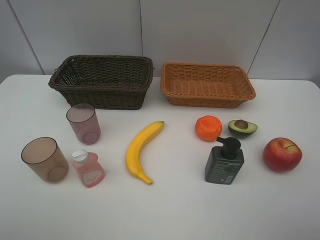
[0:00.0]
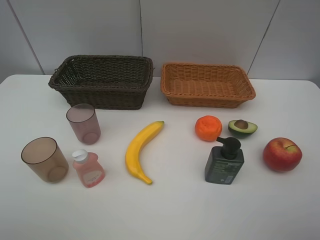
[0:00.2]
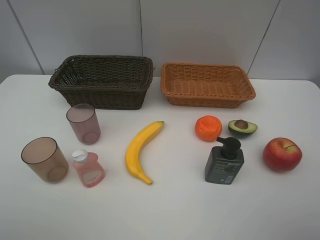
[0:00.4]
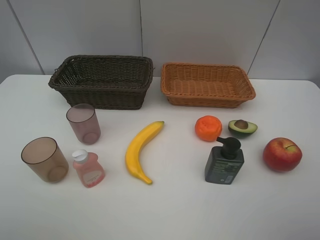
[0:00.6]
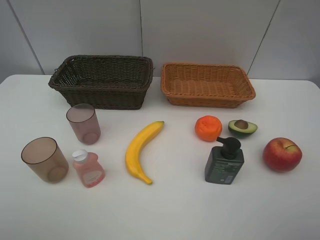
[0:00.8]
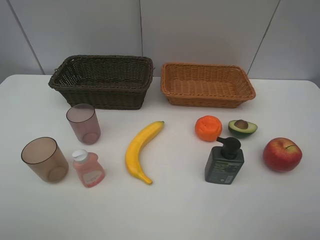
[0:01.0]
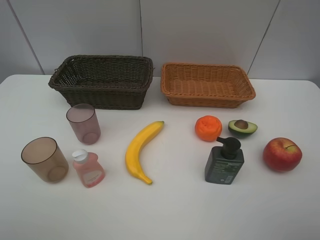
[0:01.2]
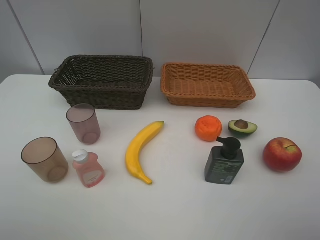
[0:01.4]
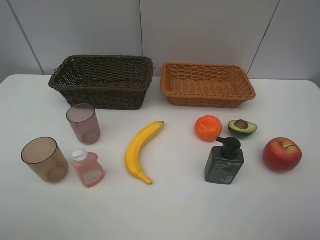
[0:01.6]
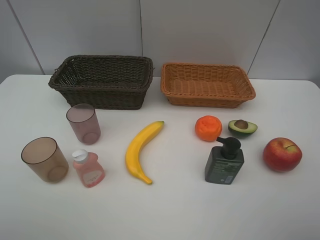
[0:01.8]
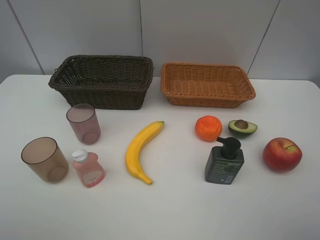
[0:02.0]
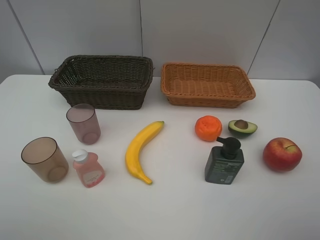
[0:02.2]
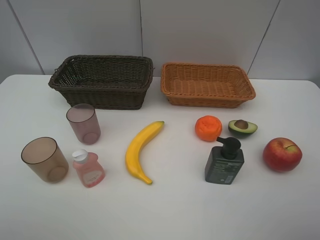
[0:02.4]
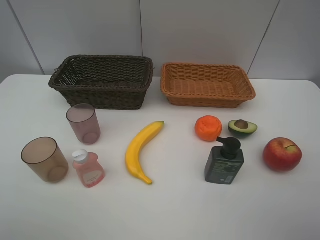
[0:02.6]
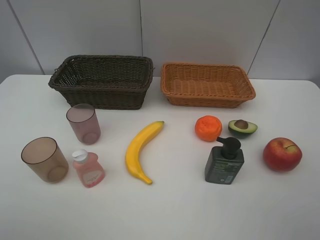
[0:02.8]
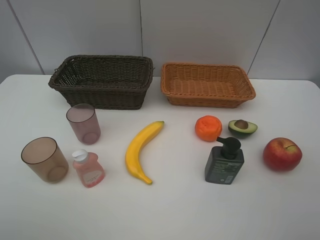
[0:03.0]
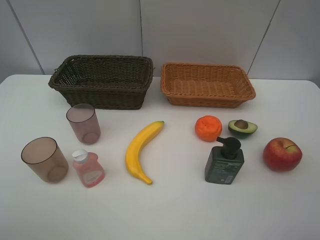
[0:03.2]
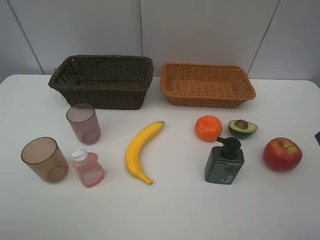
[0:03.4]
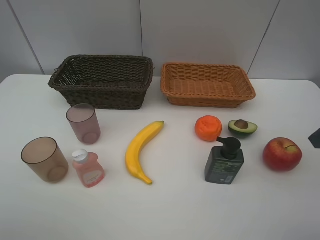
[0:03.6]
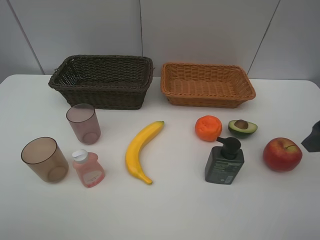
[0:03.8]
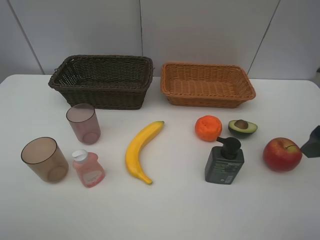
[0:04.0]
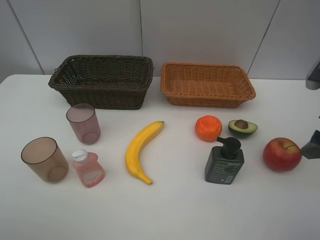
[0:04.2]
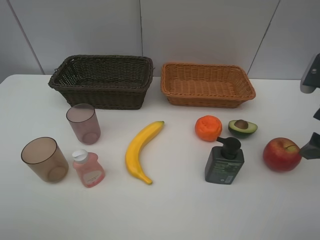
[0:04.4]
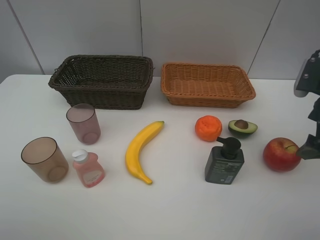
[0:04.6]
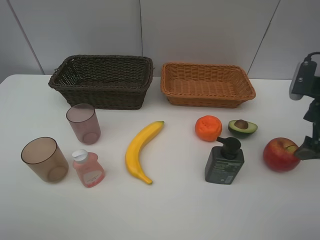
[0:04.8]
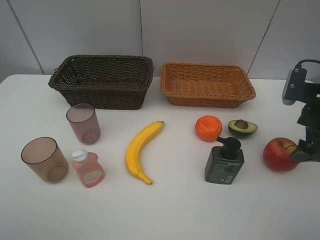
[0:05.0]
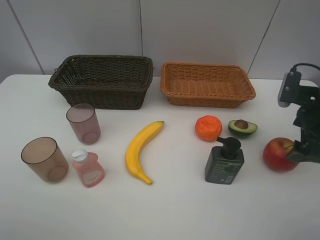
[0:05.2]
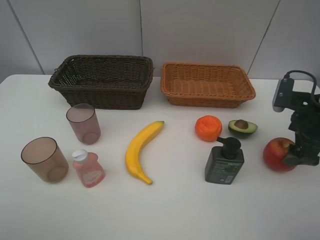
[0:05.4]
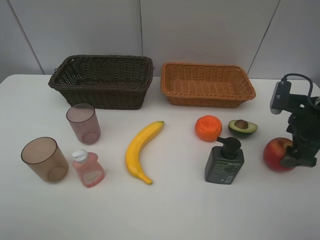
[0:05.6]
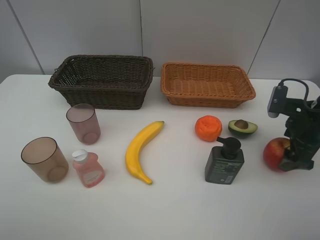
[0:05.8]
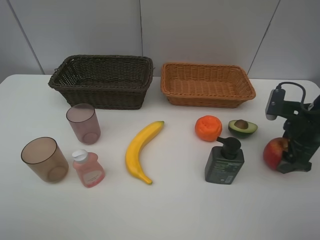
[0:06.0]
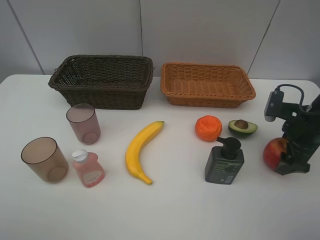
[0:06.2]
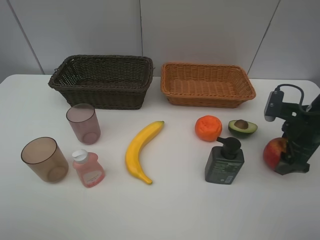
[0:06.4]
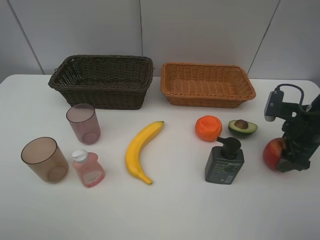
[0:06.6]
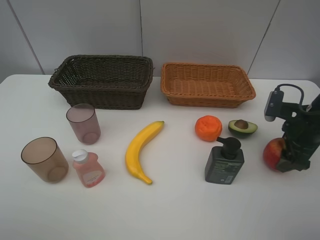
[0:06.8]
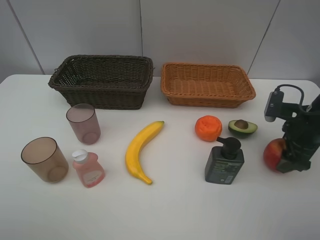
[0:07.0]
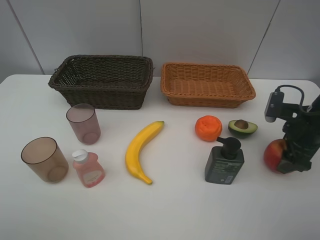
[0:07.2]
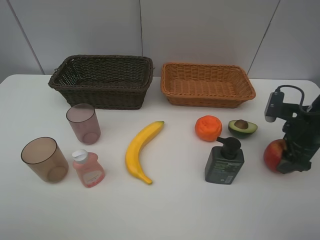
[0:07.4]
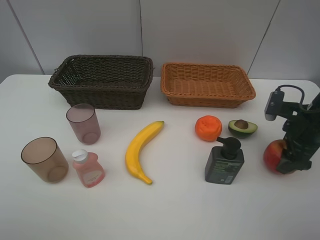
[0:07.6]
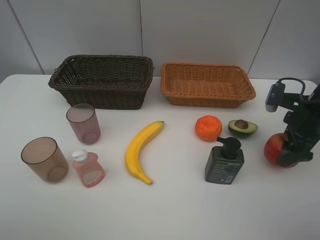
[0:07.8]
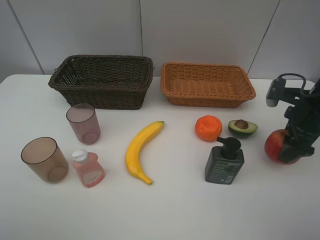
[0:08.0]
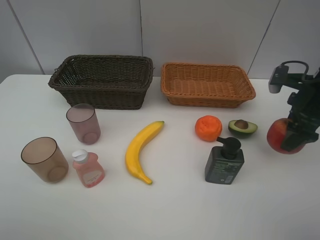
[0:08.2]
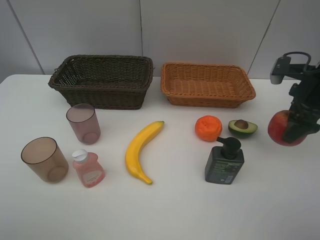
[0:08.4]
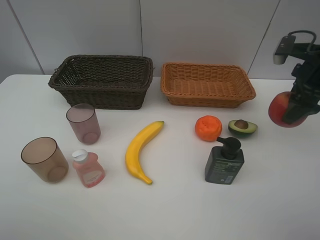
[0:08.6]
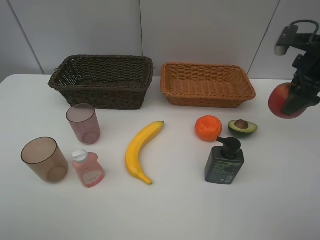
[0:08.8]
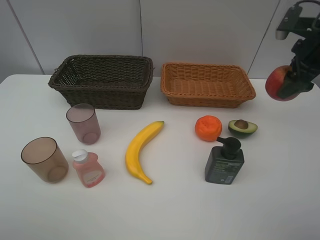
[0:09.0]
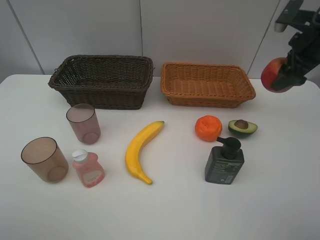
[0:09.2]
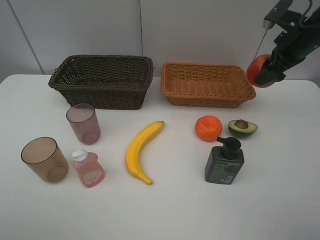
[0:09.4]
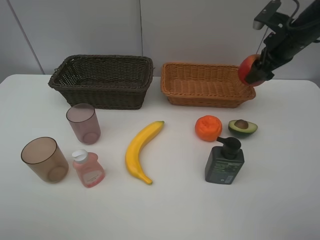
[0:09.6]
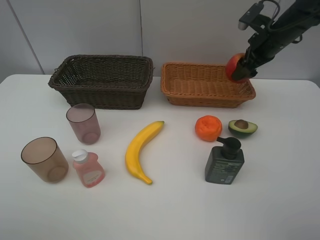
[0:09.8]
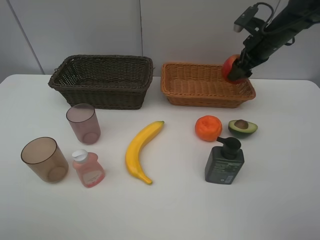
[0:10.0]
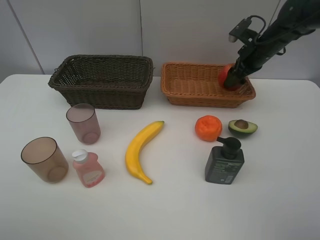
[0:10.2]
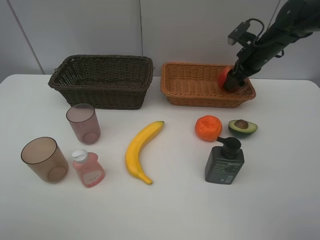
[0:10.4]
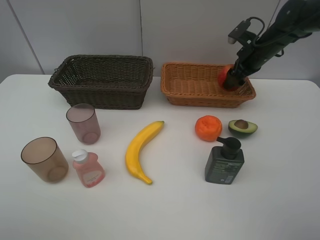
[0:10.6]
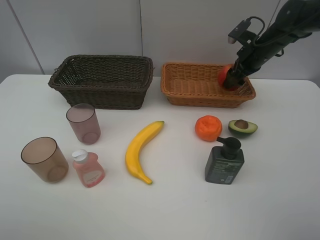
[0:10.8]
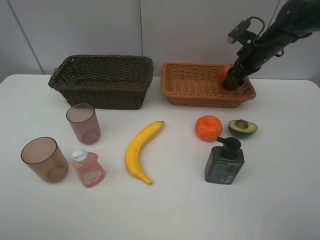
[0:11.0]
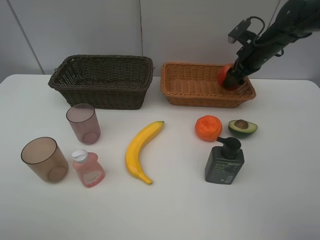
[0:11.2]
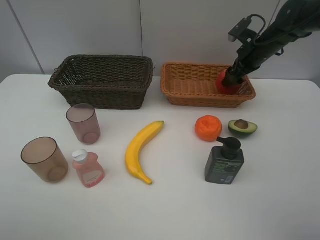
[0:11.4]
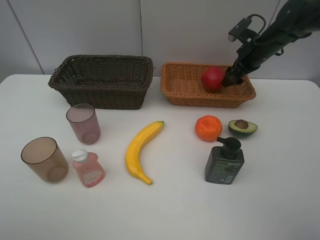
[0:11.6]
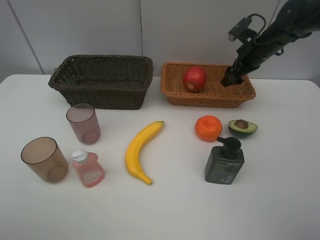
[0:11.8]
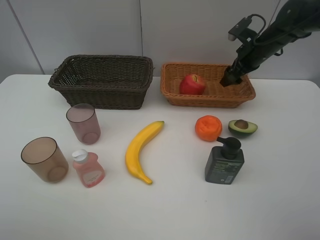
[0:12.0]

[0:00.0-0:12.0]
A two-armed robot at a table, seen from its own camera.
Task of the whole recording: Place multiple objects separately in different baskets.
Step, 0:00.0 to 0:07.8: Pick up the apple with right gripper.
0:00.0 to 0:01.6: Neither gripper changes place.
0:03.0 to 0:04.4: The right gripper goes approximately 15 cm forward and downward.
0:04.4 to 0:06.0: The right gripper shifts some 10 cm downward.
0:06.0 to 0:07.6: Both grippers stay put.
0:07.6 to 0:09.0: The right gripper shifts approximately 15 cm upward and forward.
0:09.0 to 0:10.4: The right gripper travels forward and downward by roughly 15 cm.
0:10.4 to 0:12.0: Both grippers stay put.

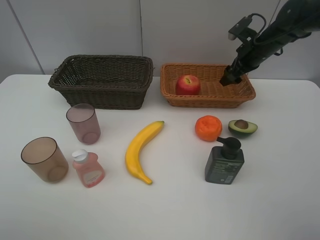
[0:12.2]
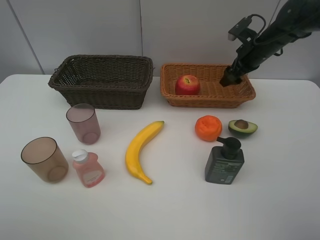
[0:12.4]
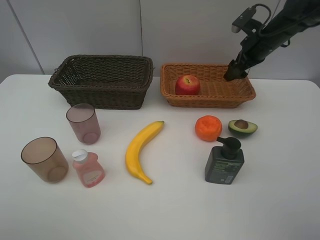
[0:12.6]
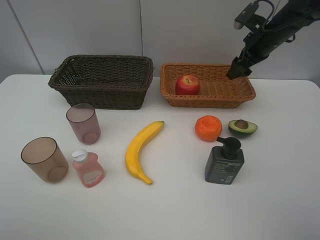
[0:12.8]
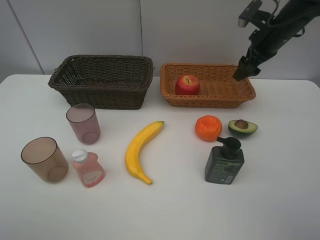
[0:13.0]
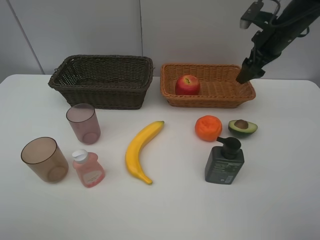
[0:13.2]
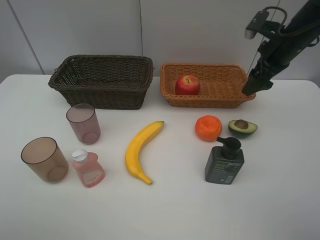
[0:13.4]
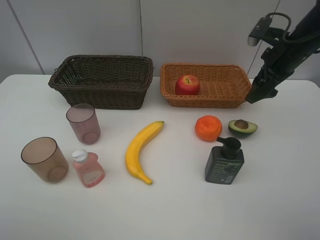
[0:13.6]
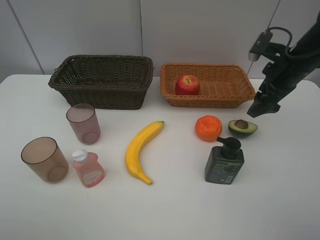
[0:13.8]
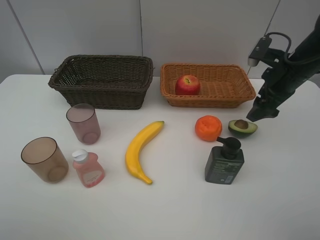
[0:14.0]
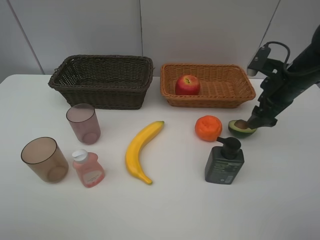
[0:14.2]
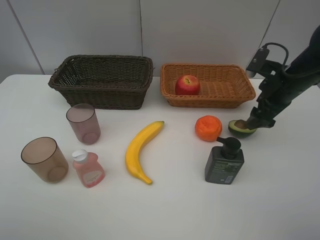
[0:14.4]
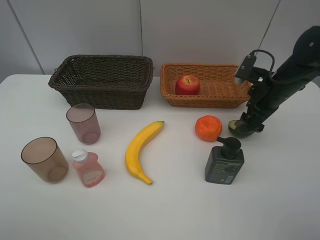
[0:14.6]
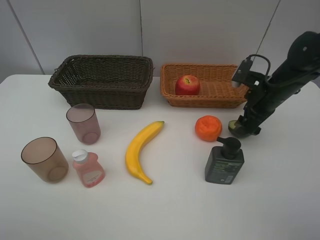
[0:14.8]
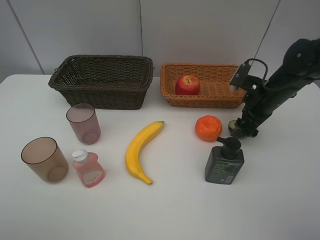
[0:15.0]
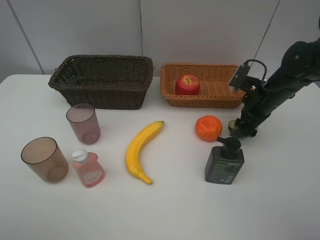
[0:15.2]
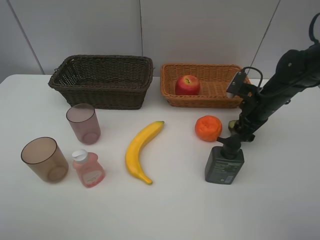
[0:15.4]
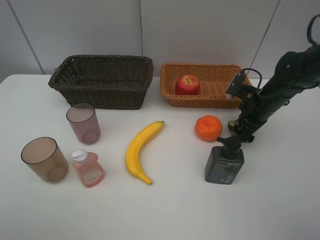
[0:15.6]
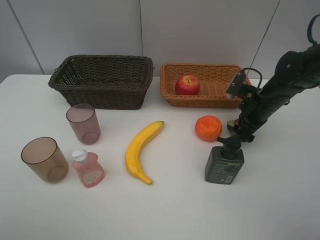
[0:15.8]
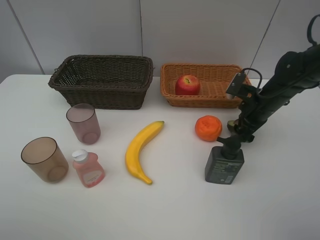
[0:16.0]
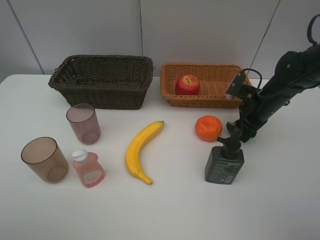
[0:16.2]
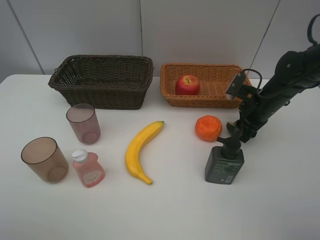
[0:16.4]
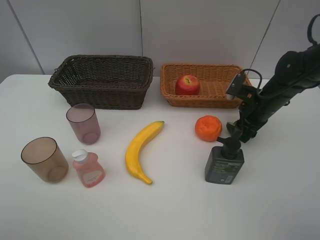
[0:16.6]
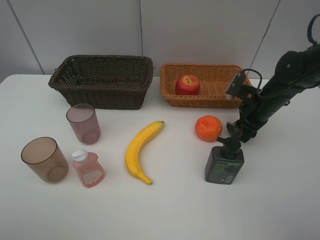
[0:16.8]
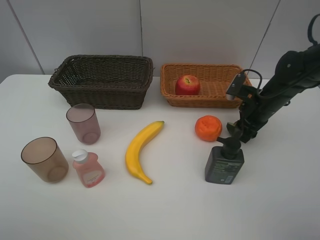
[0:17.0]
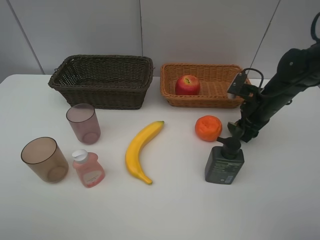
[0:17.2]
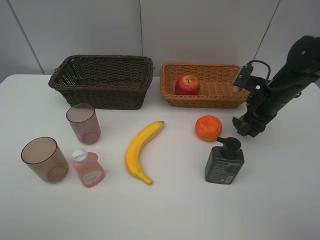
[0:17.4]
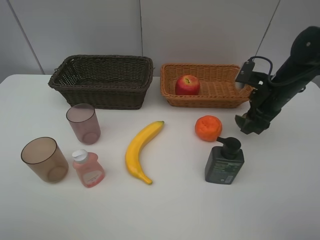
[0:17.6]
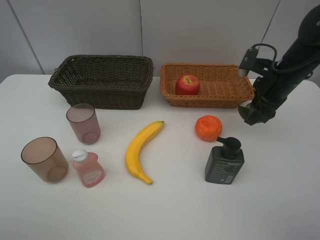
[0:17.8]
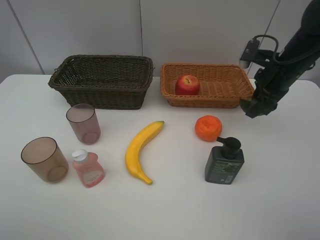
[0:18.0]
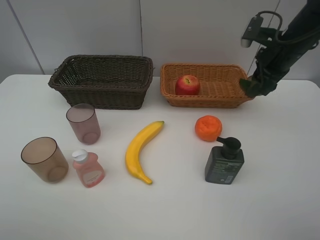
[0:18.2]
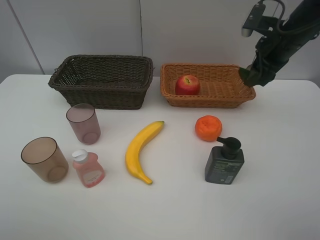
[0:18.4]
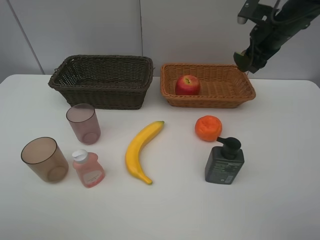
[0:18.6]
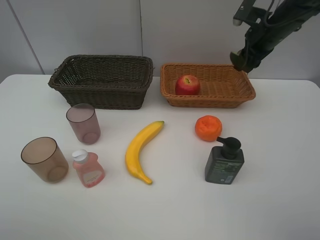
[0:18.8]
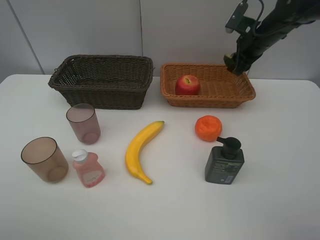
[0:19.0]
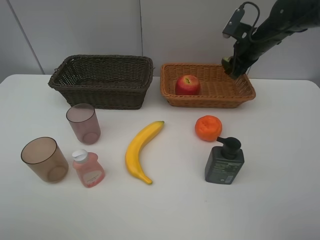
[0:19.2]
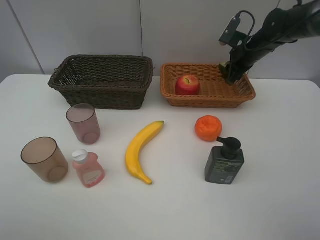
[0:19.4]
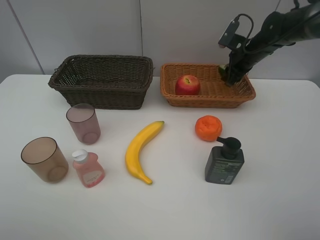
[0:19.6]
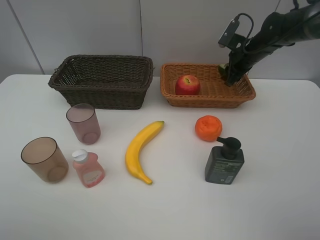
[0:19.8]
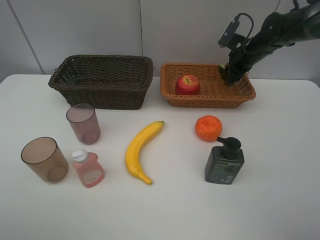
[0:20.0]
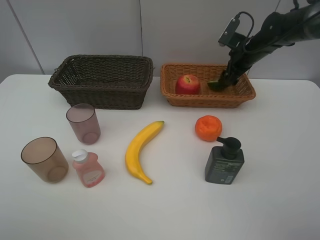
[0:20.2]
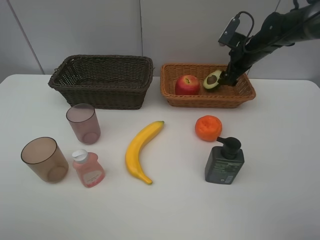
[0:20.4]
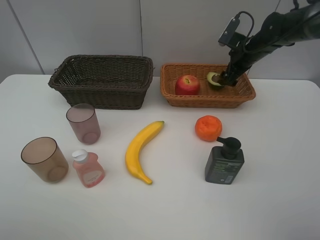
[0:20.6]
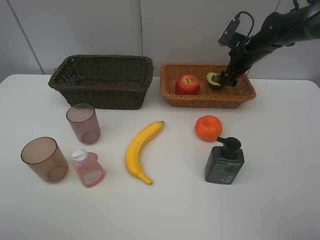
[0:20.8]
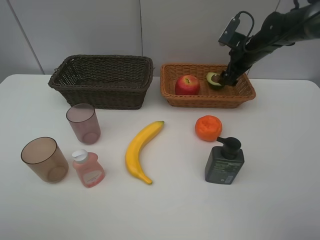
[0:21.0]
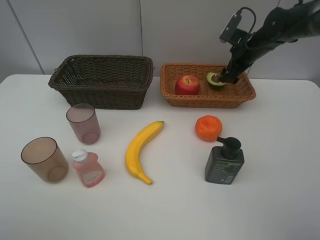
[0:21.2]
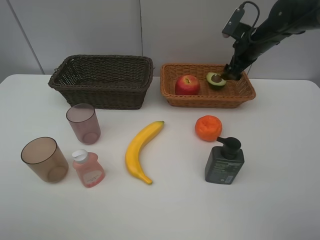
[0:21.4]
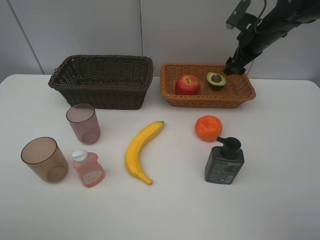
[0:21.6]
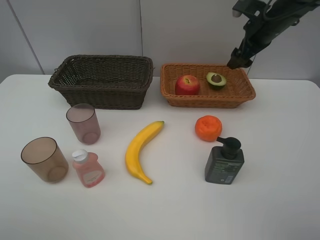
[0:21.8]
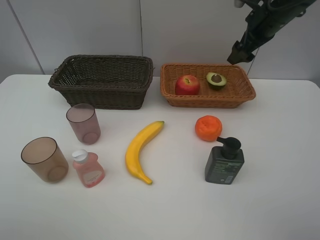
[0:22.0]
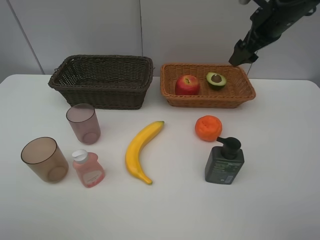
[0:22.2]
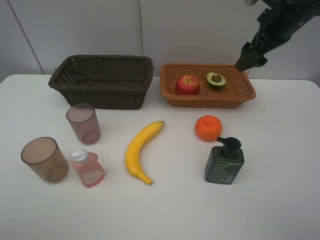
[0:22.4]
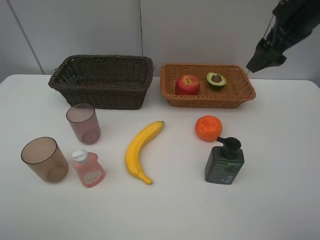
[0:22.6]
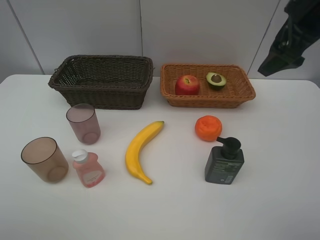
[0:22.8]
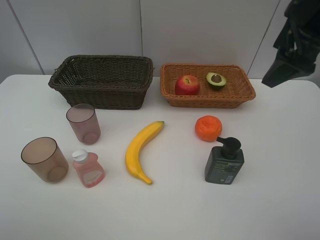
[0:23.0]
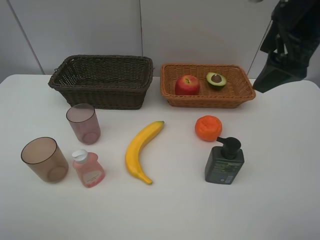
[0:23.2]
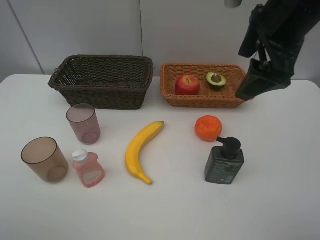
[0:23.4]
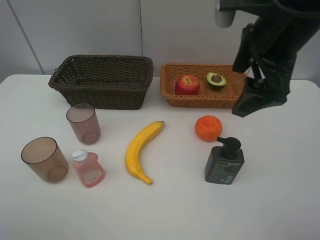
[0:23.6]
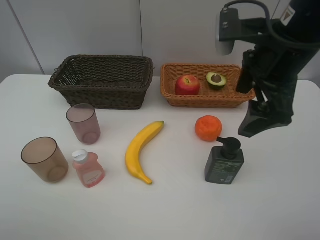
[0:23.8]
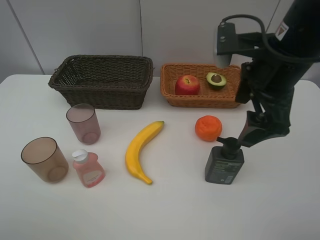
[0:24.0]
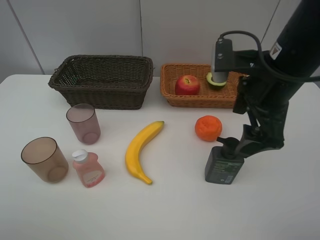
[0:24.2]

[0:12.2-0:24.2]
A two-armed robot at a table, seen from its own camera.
Task of the whole recording: Place multiple objects separately in different baskets.
Step, 0:12.6 to 0:17.4: Pick up the avocado with right gripper.
Step, 0:17.6 to 0:21.0: Place the avocado in the light basket with right gripper.
0:12.2 to 0:13.8: The right gripper is displaced backward by about 10 cm.
0:13.8 to 0:15.2: The right gripper goes about 10 cm downward.
0:15.2 to 0:16.6: The right gripper closes.
0:16.6 to 0:18.2: The right gripper goes roughly 15 cm upward.
0:18.2 to 0:19.8: The right gripper moves forward and downward, some 15 cm.
0:19.8 to 0:21.2: The right gripper opens.
0:21.2 to 0:22.6: The right gripper shifts about 20 cm backward and upward.
0:22.6 to 0:24.2: The right gripper shifts about 15 cm backward, to the left and downward.
